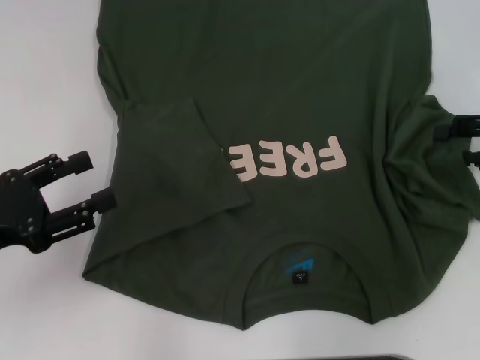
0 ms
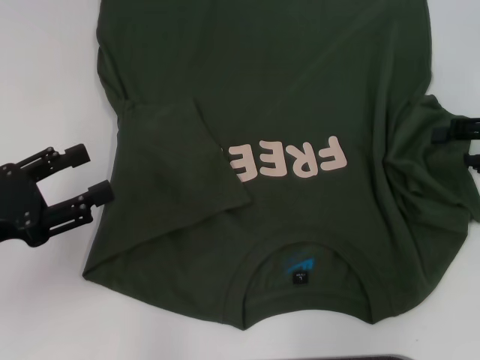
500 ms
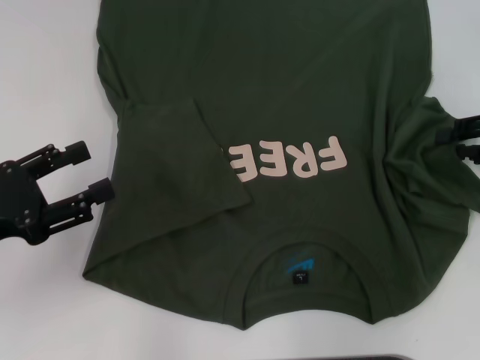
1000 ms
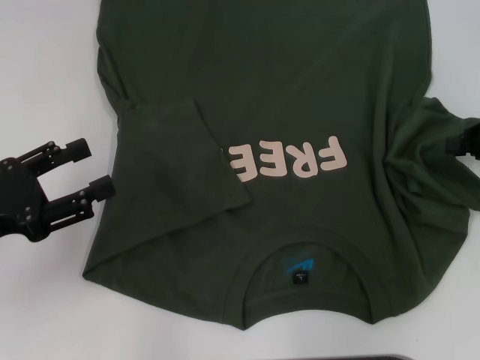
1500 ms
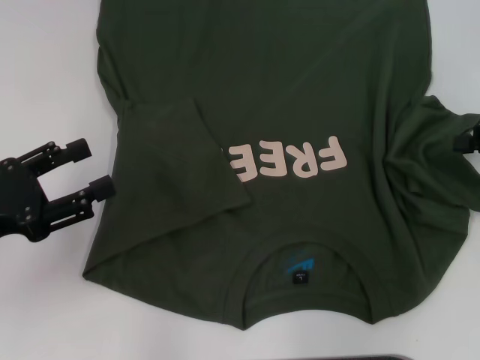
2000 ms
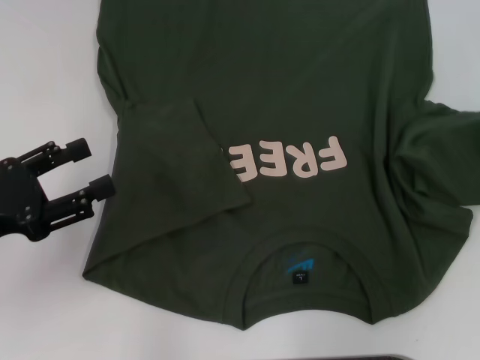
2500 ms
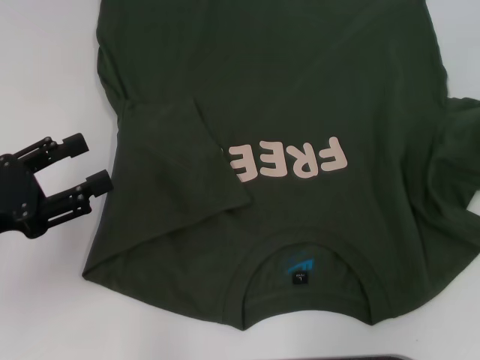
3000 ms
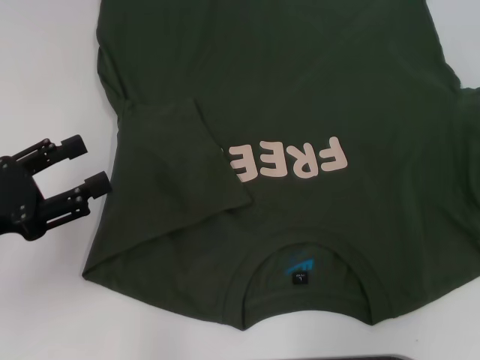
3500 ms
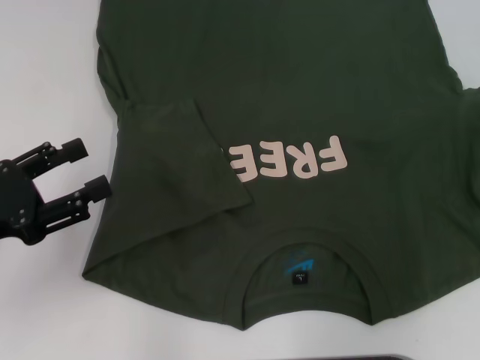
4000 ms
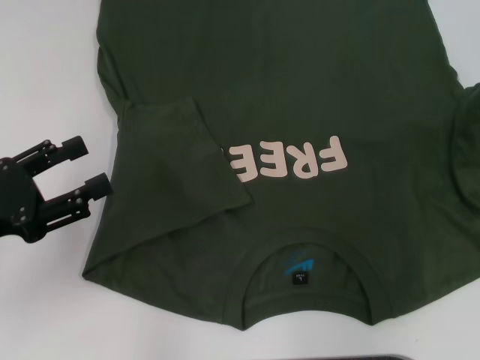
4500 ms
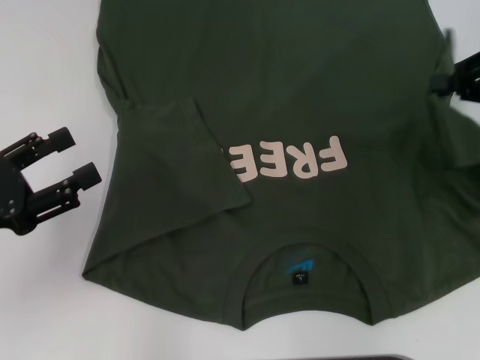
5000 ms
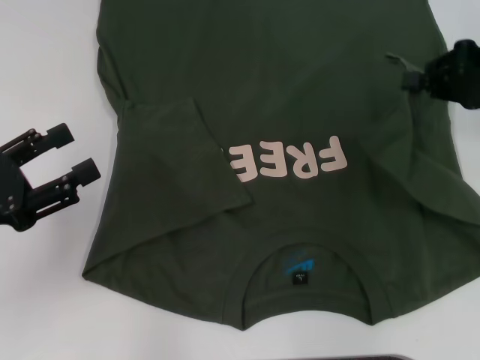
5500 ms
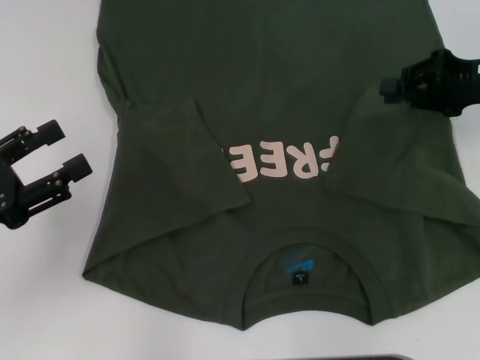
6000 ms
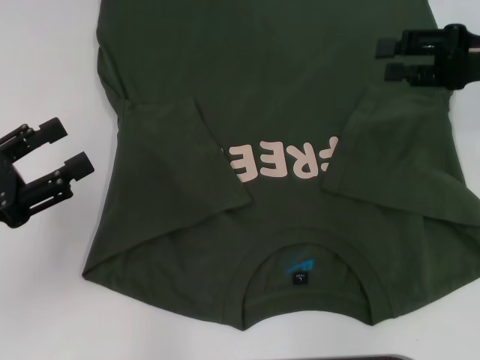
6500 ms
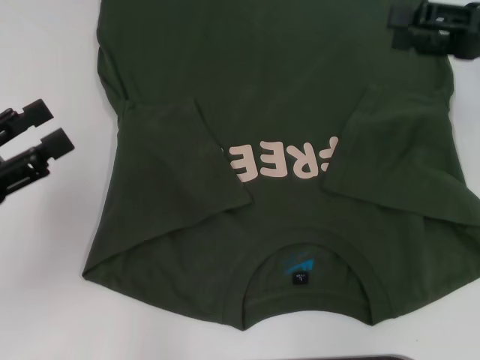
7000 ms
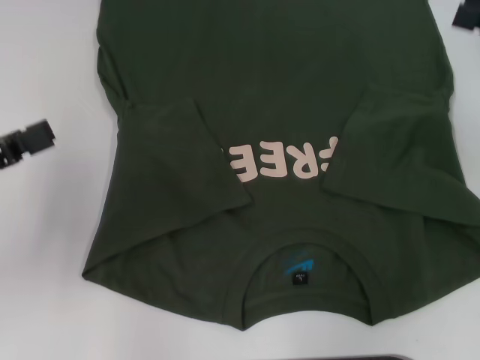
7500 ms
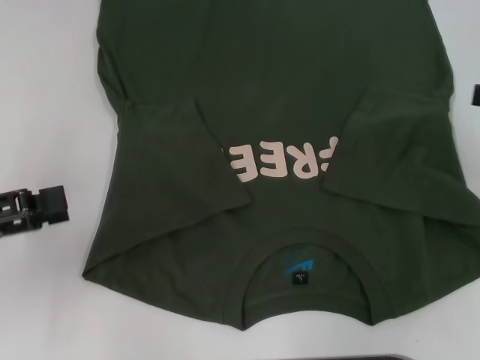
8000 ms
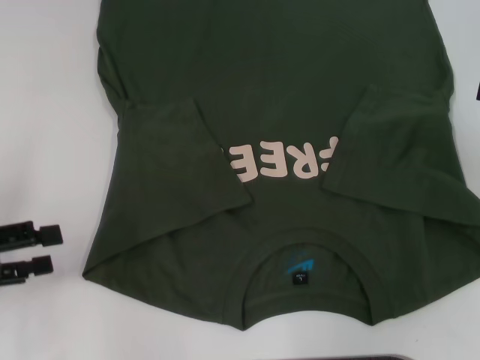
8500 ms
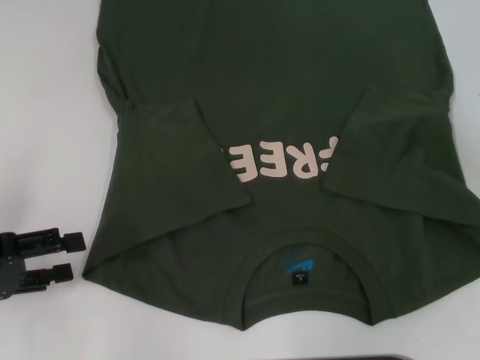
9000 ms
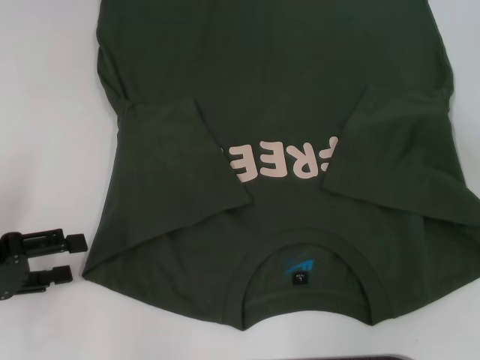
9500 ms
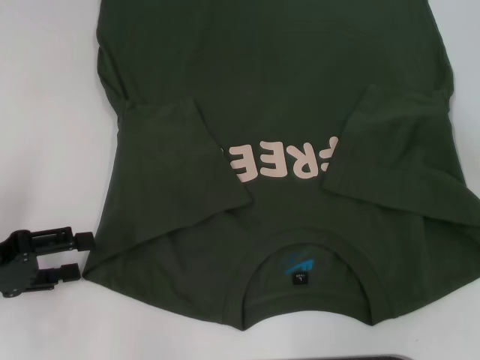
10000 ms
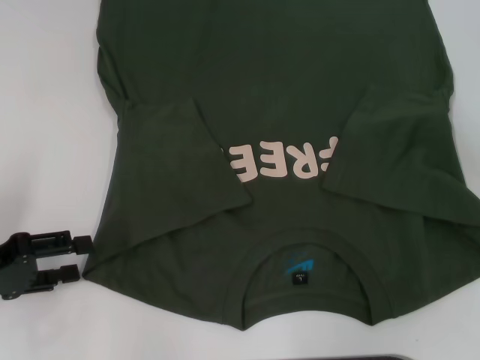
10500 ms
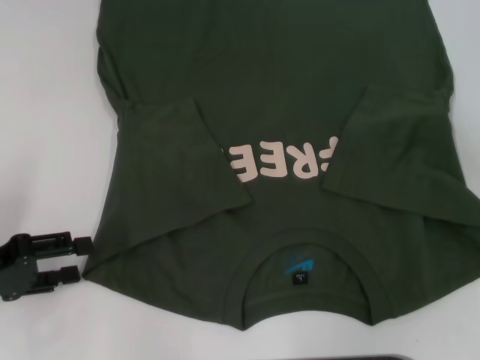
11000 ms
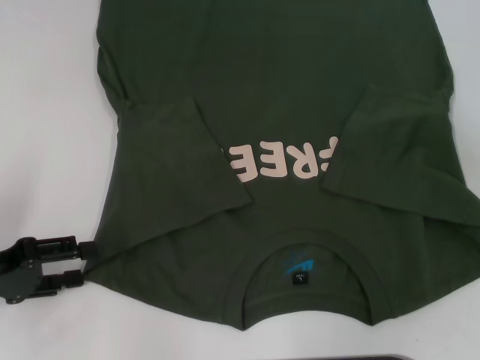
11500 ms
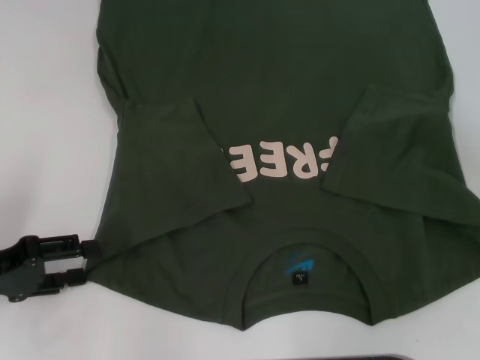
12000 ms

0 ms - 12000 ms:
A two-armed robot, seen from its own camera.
Step, 0 ms - 10000 ms: Fold the bottom right sleeve with your right hand.
0 ms - 2000 ms: The right gripper closes.
2000 ms - 4000 ms: The right gripper moves upward and to the right, some 10 cm.
4000 ms - 6000 ms: The right gripper goes roughly 15 cm to the left, downward and forward.
6000 ms - 8000 ms: The right gripper goes roughly 10 cm backward and to the right, and opens its fingers.
8000 ms - 10000 ms: The left gripper moves downward, approximately 5 cm.
10000 ms - 12000 ms: Neither gripper changes place.

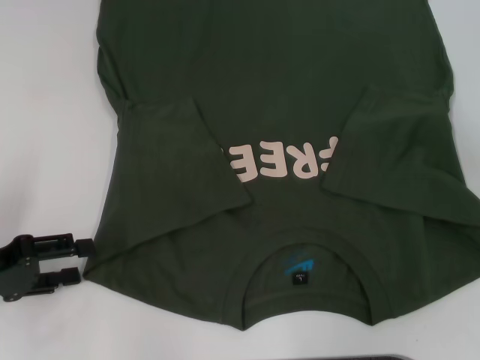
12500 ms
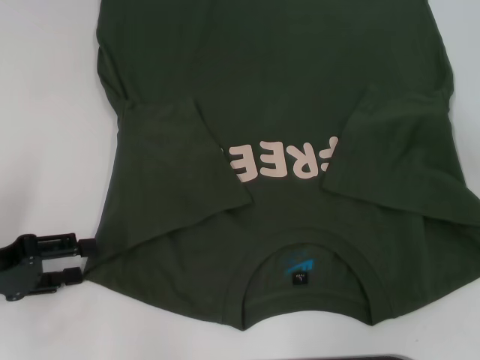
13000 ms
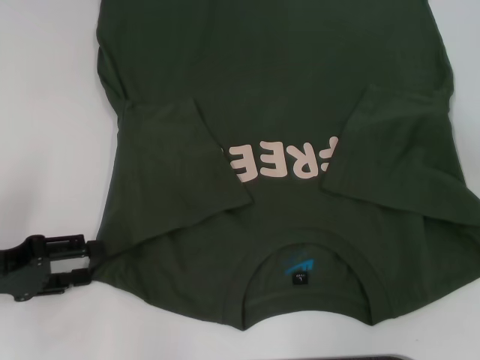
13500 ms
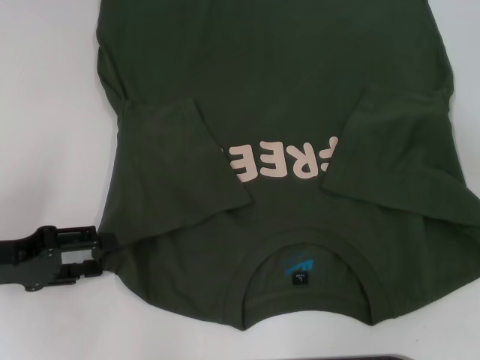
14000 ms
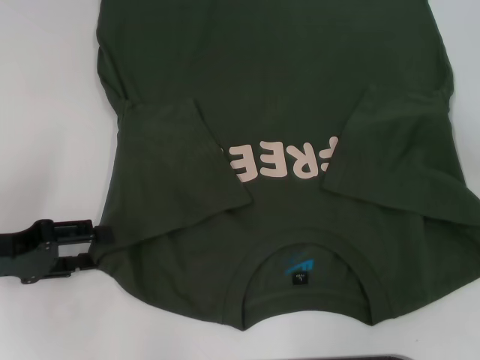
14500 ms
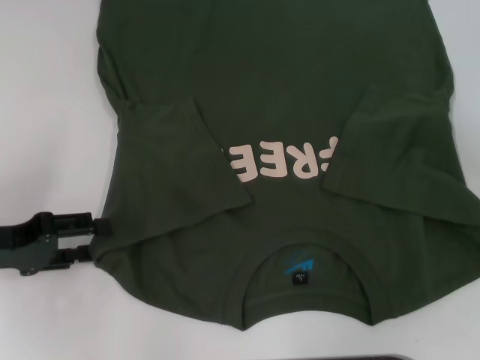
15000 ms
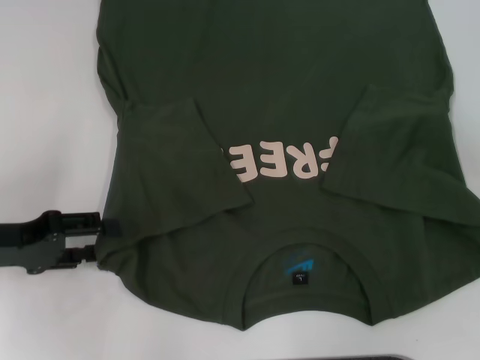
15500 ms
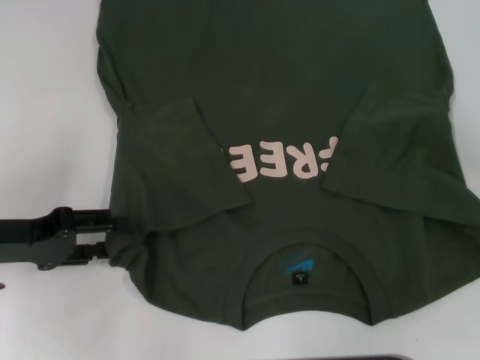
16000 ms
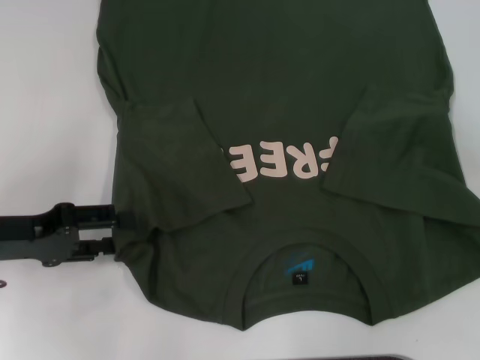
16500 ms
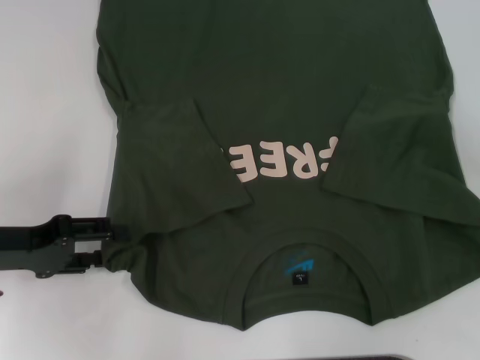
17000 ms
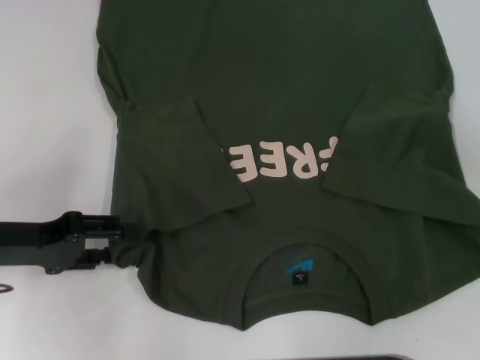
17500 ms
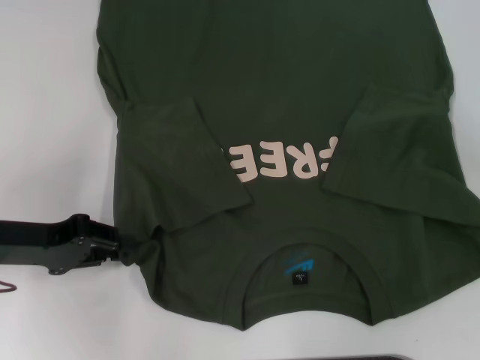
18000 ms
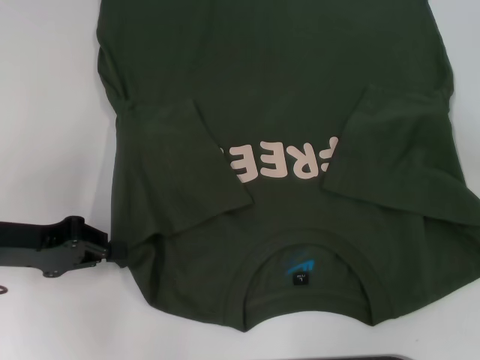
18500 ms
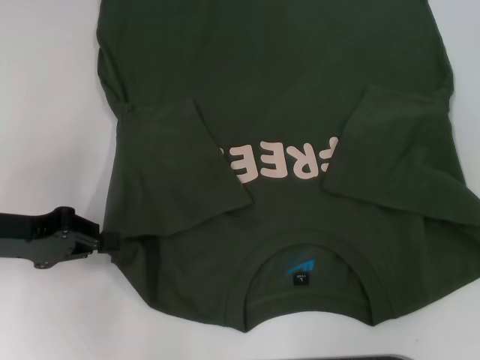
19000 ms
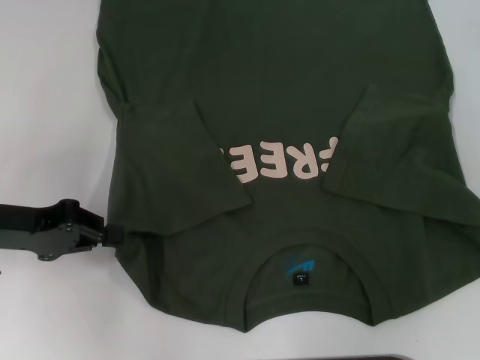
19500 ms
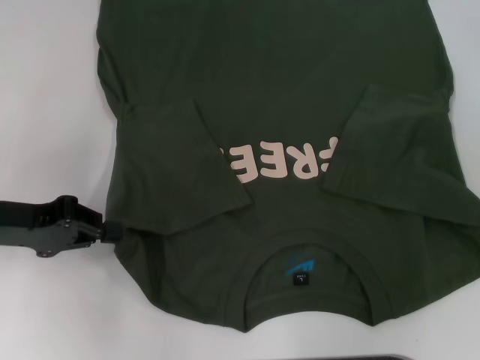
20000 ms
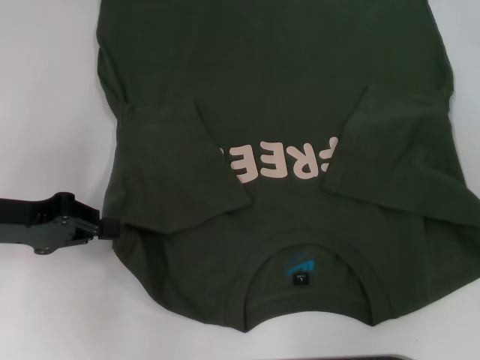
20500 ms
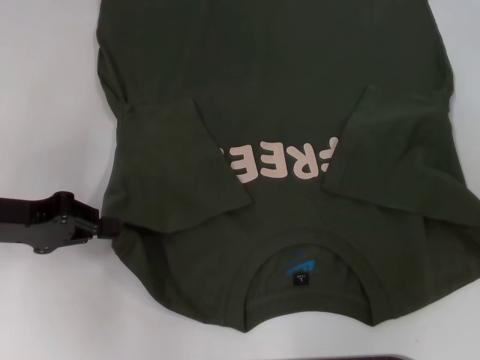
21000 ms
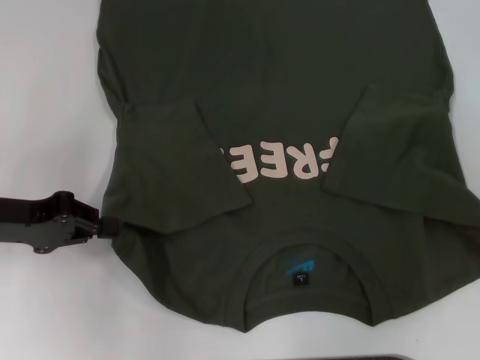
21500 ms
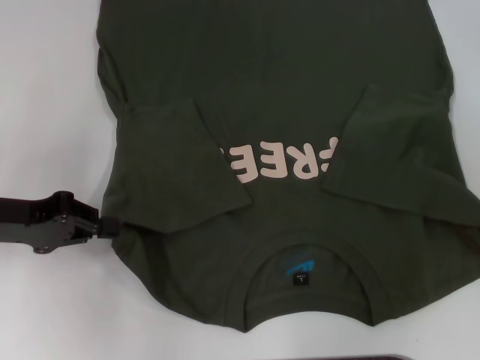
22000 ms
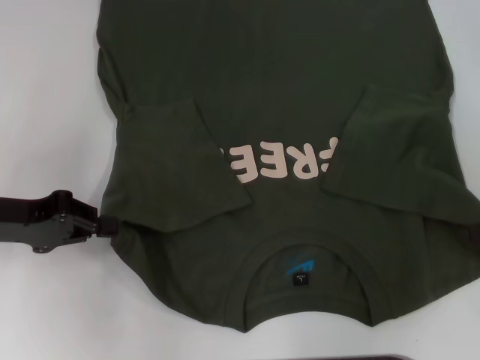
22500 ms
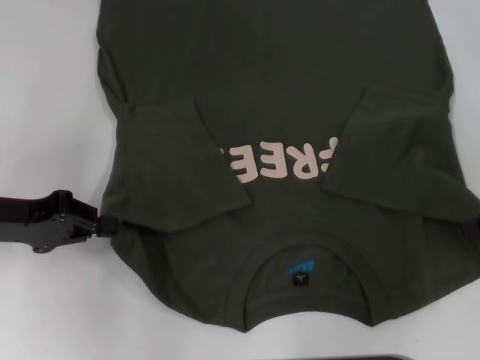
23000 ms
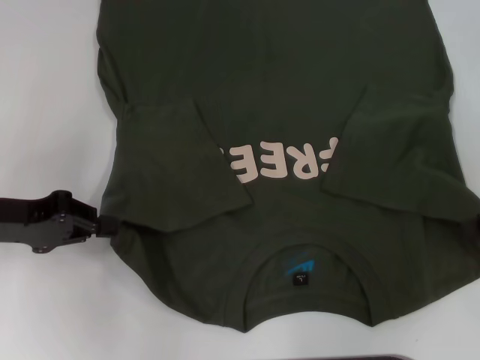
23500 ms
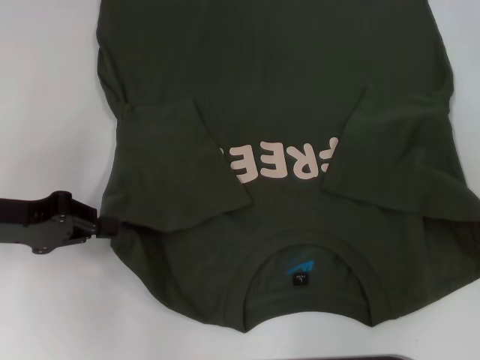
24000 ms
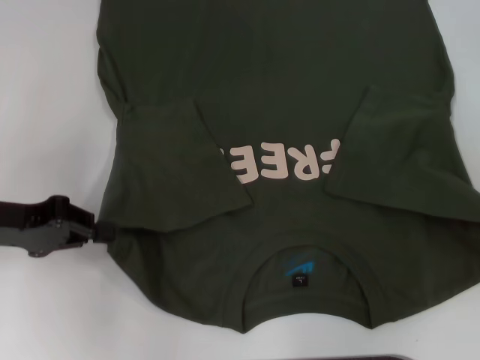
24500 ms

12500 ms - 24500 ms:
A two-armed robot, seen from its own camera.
Step, 12500 ms - 18500 ms: Grab the bottom left corner with your left hand.
12500 ms - 16500 ms: There are only small adjustments of the grippers.
16500 ms - 18500 ms: The left gripper closes up.
22500 ms - 24500 ms: The right gripper closes up.

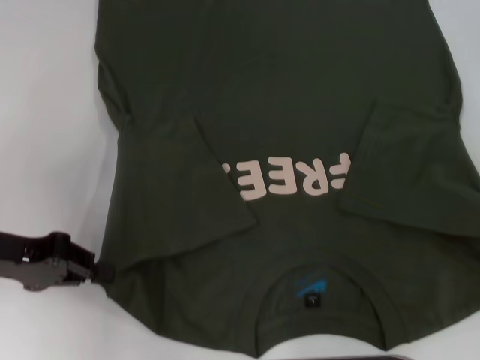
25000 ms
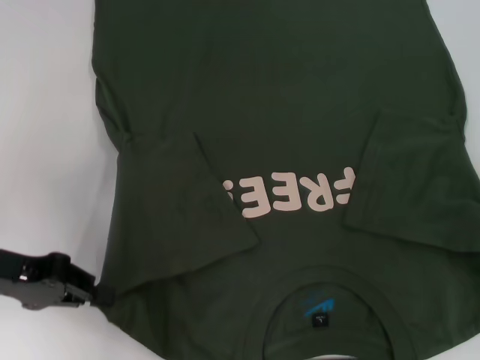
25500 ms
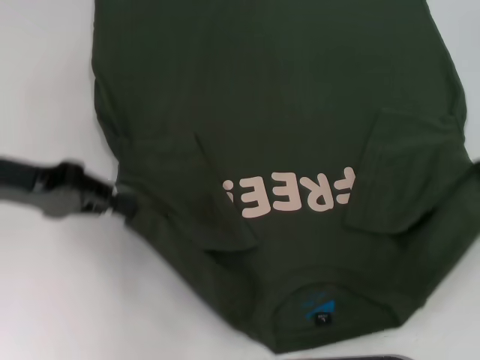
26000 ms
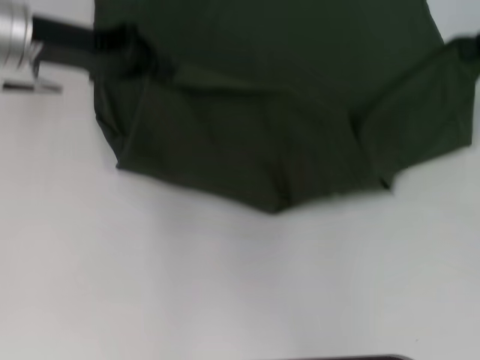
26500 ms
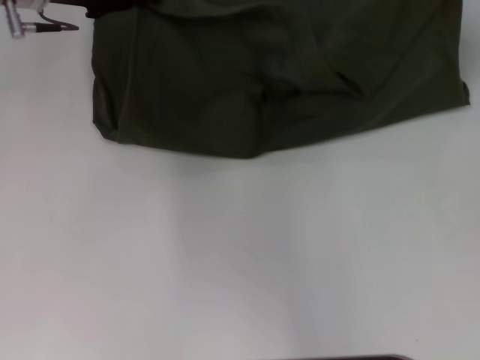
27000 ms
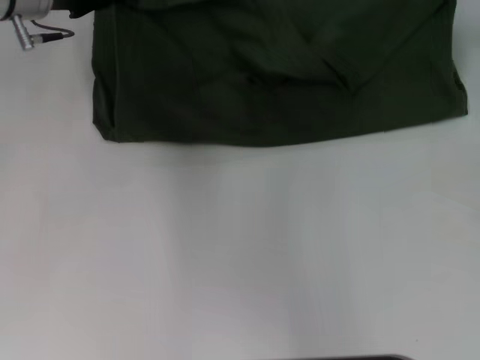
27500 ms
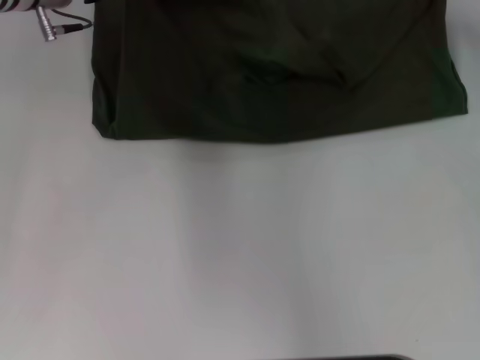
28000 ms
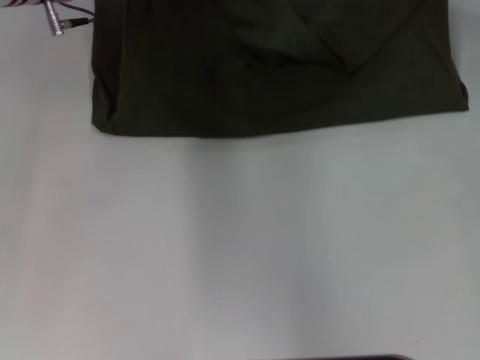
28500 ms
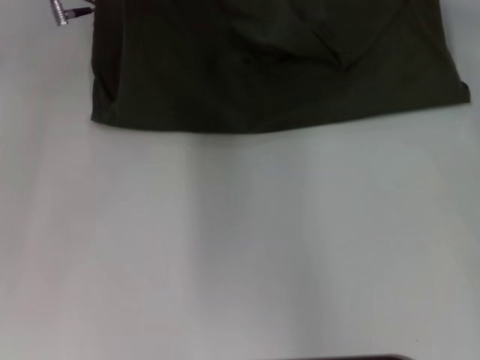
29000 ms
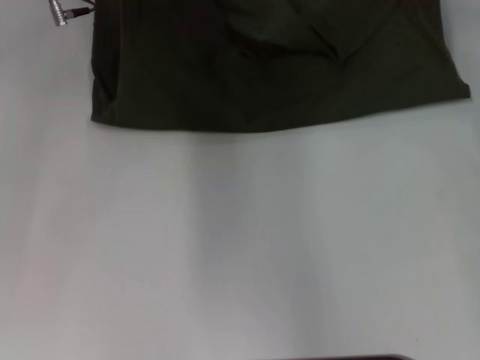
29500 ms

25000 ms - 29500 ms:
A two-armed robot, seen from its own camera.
25000 ms - 27000 ms: The right gripper goes some 20 cm forward and upward. The left gripper goes about 20 cm forward, upward and to the right.
27000 ms - 29500 ms: The right gripper is displaced downward by approximately 5 cm.
